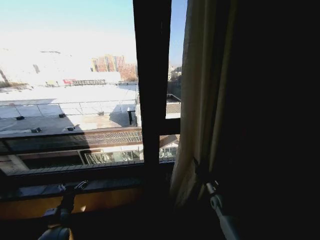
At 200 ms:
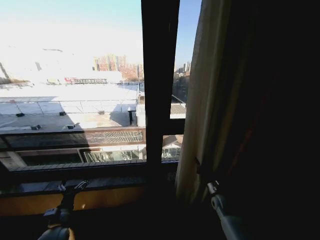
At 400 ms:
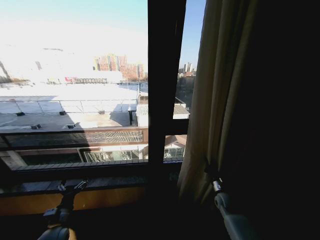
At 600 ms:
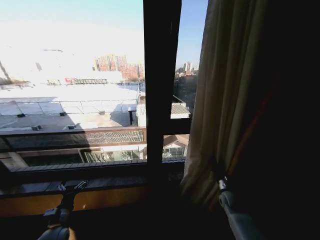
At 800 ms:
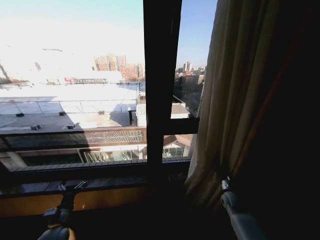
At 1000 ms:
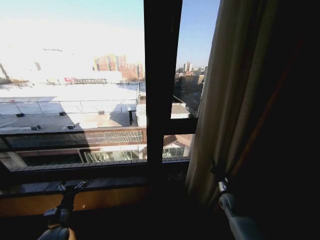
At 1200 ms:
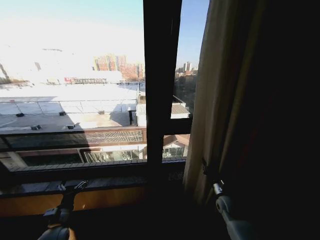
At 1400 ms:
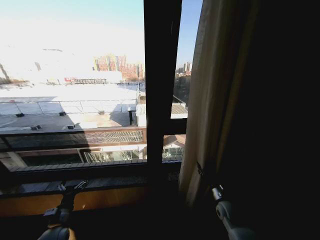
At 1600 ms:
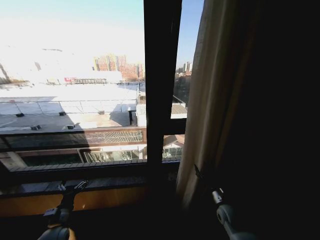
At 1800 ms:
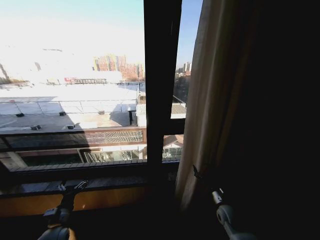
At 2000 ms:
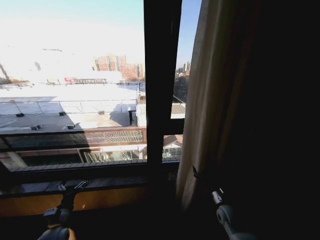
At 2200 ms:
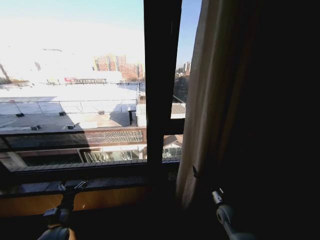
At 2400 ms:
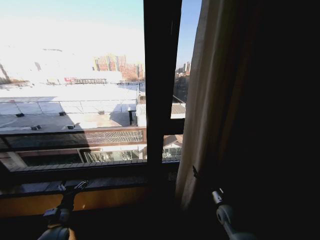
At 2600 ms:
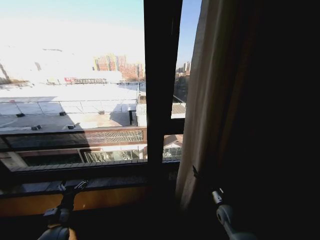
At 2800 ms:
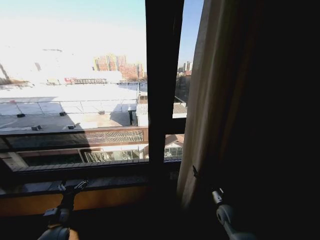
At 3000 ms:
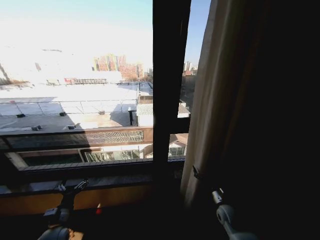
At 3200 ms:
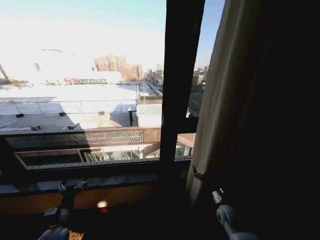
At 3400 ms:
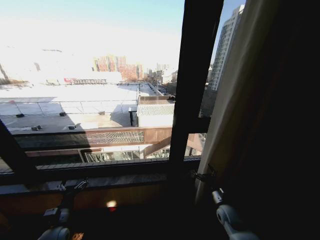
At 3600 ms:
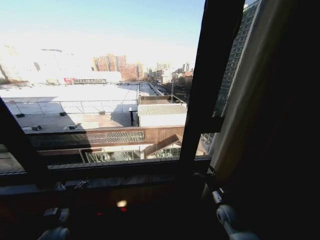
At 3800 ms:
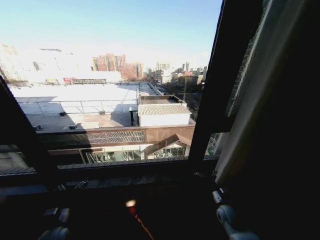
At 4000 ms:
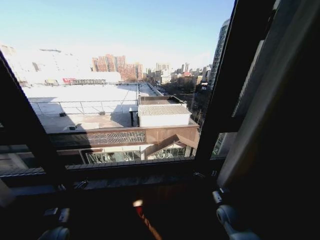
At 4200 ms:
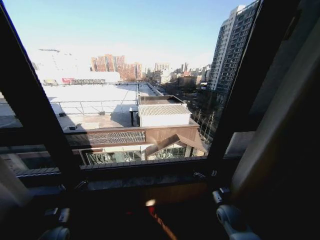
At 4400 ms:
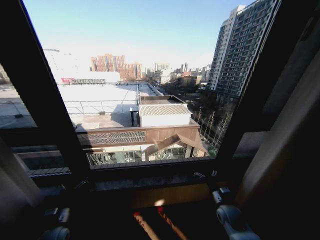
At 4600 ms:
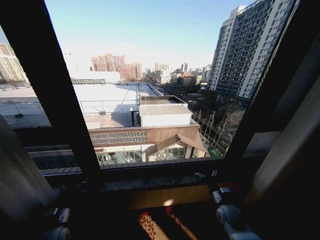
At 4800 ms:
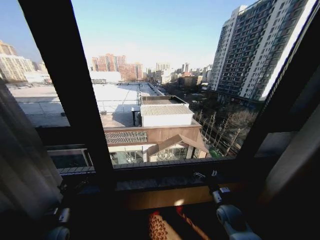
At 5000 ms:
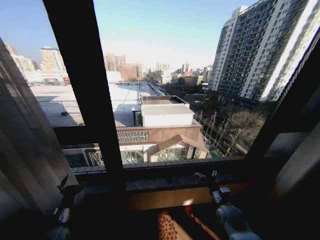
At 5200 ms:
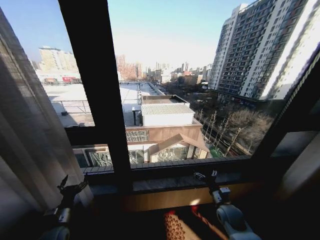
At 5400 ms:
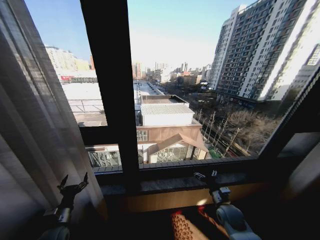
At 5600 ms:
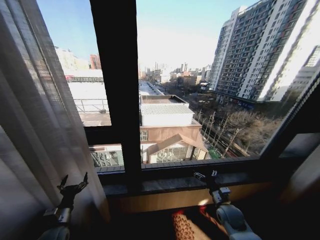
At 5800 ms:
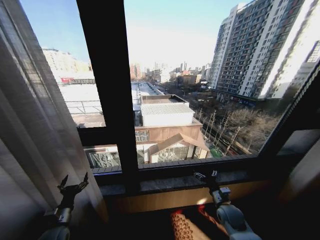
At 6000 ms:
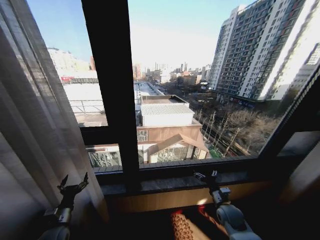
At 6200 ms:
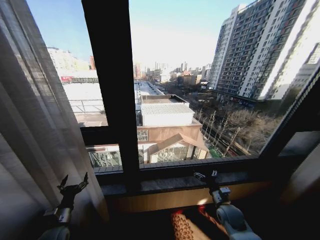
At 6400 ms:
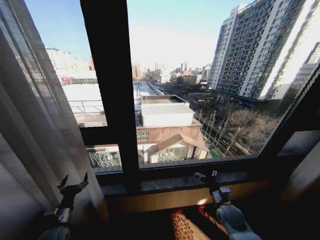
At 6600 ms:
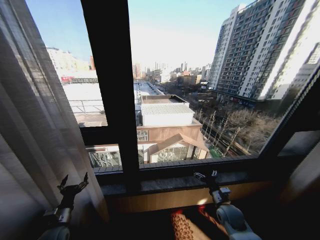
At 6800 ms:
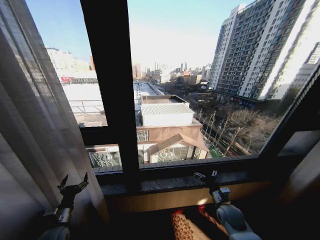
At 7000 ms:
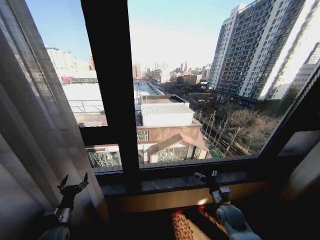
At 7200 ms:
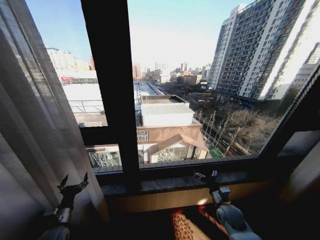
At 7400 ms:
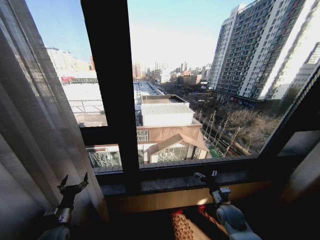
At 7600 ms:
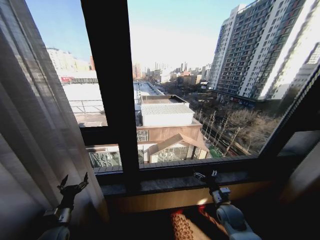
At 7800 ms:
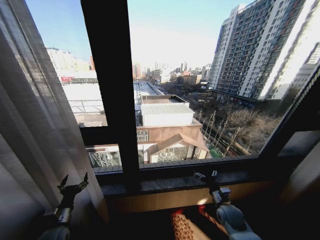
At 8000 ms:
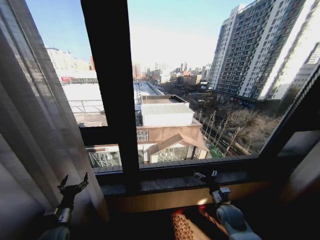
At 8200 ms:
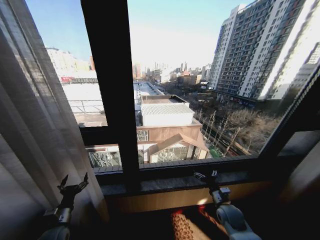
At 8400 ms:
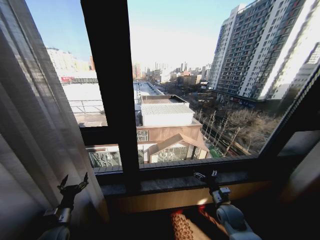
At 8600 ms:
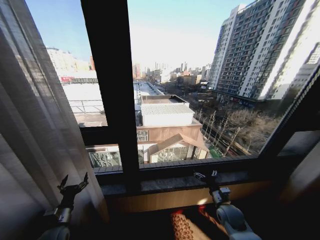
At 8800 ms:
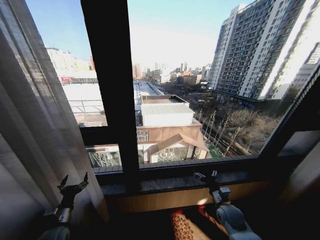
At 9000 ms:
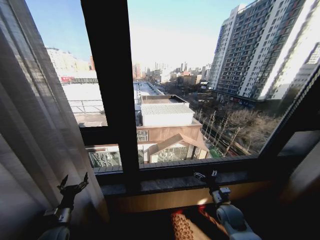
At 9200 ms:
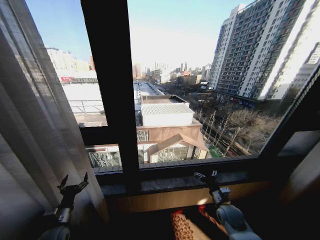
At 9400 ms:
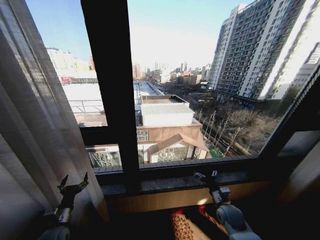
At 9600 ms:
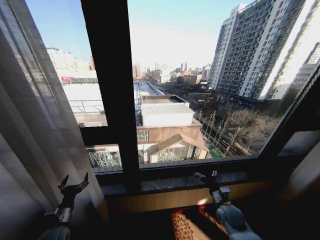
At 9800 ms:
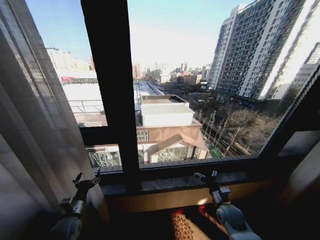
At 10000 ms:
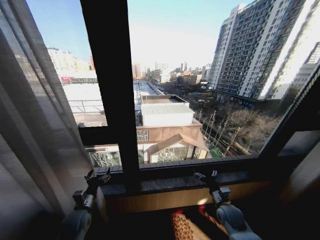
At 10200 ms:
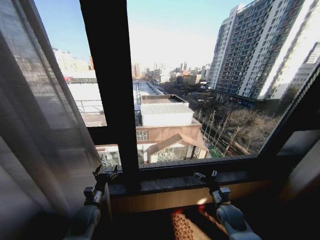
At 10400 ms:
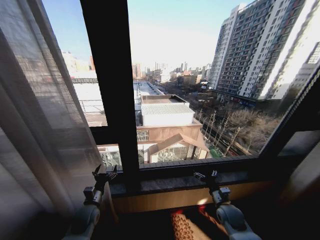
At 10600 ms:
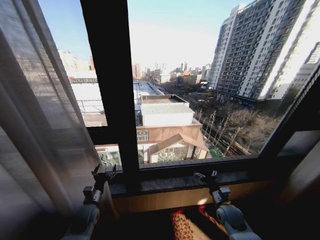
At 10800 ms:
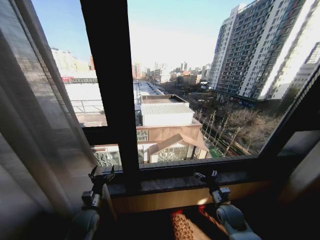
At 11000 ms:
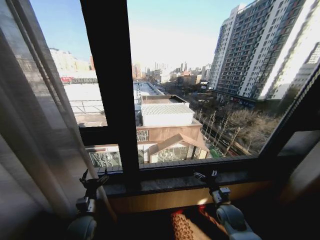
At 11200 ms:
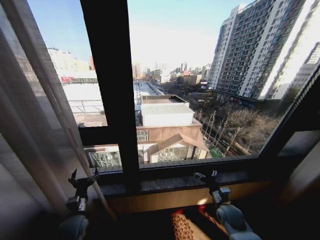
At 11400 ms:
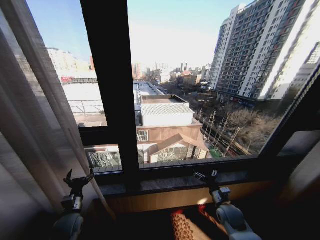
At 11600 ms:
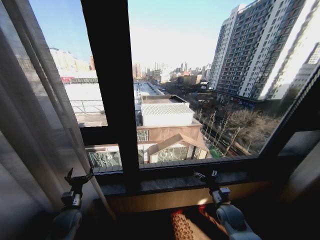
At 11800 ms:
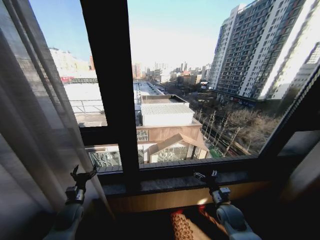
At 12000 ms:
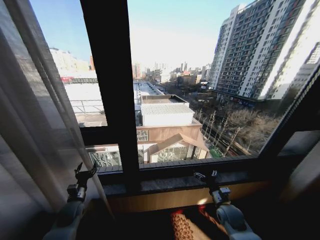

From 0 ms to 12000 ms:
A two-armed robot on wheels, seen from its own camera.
Task of the whole recording: Open the curtains by pulling them apart, changing their state from closed to fully open.
From 0 ms to 1600 ms: The right gripper goes roughly 5 cm backward, and opens its fingers.
From 1600 ms to 3000 ms: The right gripper opens.
From 6000 ms to 9000 ms: Both grippers stay about where they are.
From 9000 ms to 10400 ms: The left gripper travels to the right and forward by roughly 10 cm.
From 10400 ms to 12000 ms: The left gripper is displaced to the left by roughly 10 cm.

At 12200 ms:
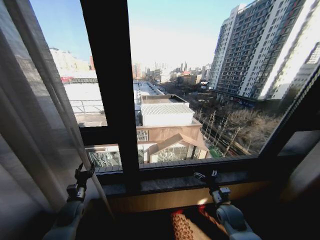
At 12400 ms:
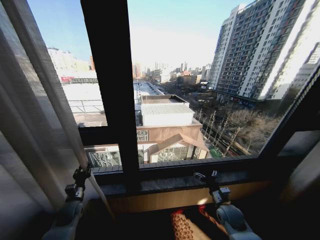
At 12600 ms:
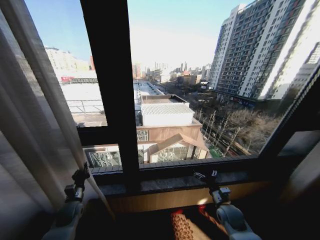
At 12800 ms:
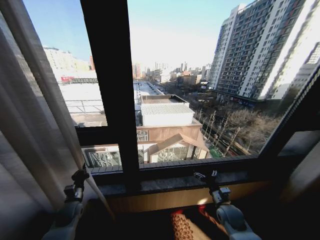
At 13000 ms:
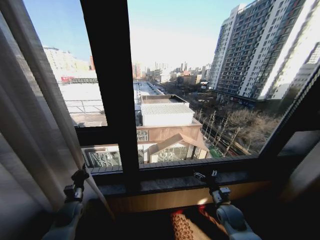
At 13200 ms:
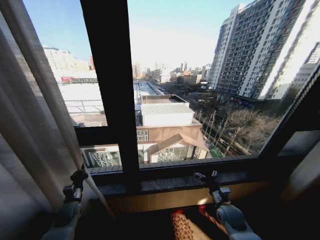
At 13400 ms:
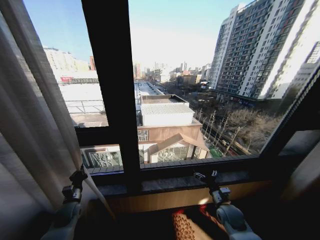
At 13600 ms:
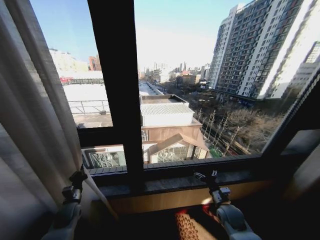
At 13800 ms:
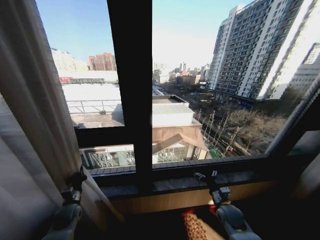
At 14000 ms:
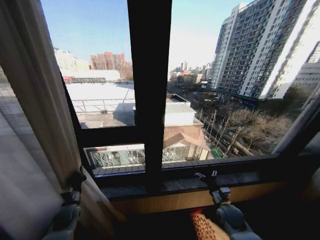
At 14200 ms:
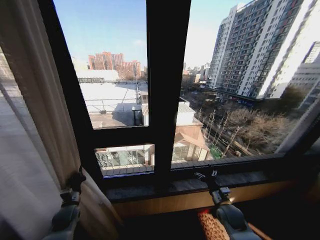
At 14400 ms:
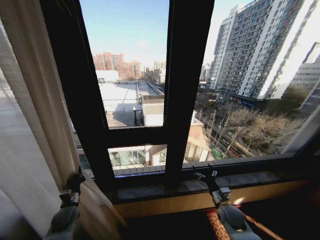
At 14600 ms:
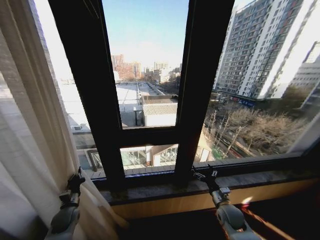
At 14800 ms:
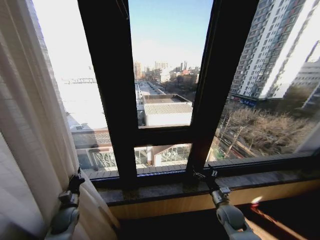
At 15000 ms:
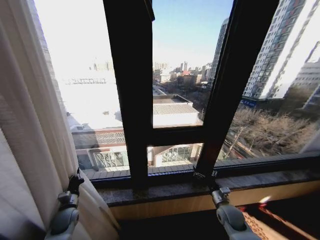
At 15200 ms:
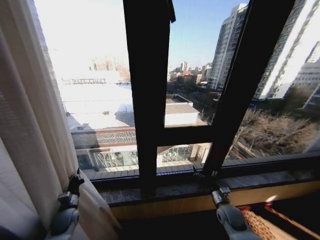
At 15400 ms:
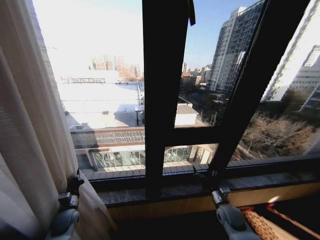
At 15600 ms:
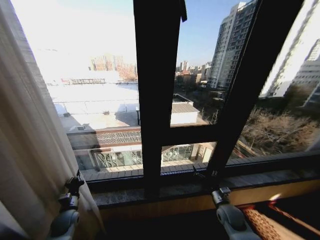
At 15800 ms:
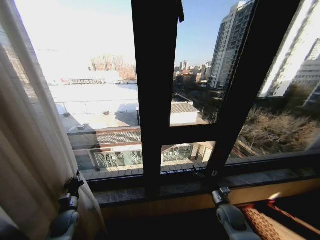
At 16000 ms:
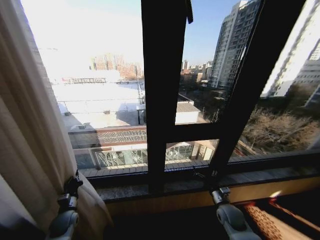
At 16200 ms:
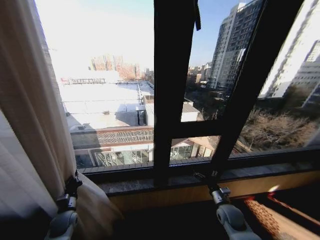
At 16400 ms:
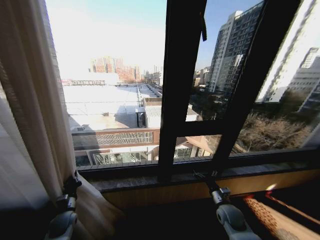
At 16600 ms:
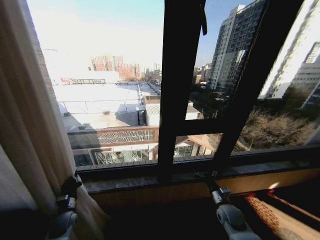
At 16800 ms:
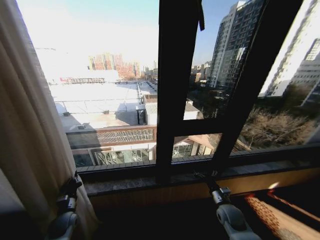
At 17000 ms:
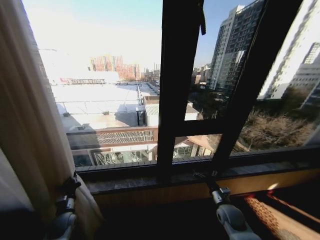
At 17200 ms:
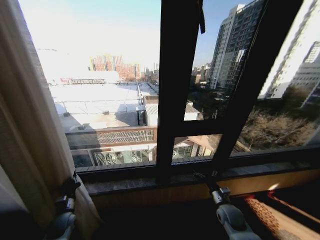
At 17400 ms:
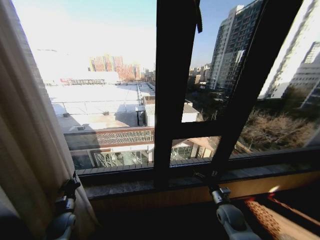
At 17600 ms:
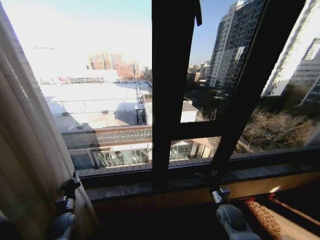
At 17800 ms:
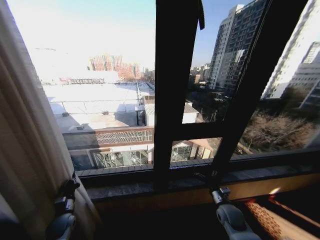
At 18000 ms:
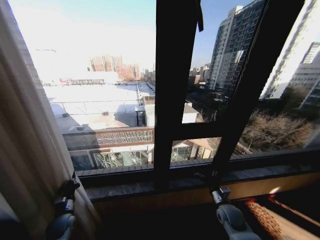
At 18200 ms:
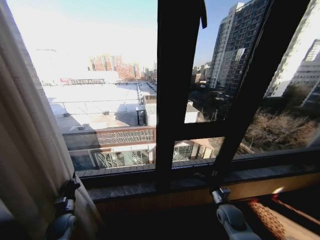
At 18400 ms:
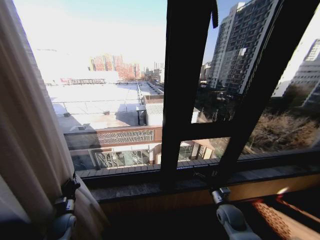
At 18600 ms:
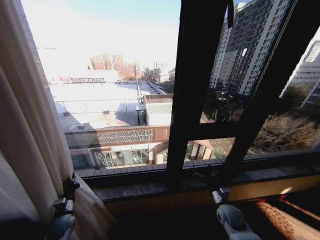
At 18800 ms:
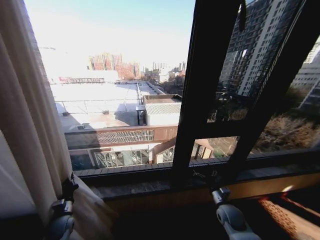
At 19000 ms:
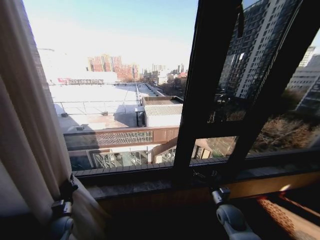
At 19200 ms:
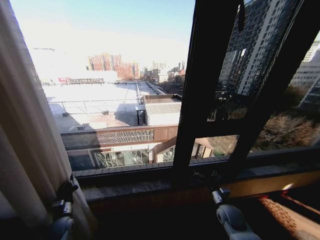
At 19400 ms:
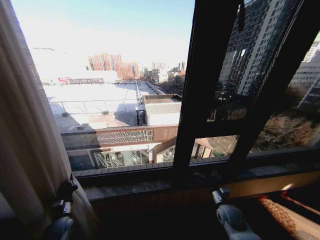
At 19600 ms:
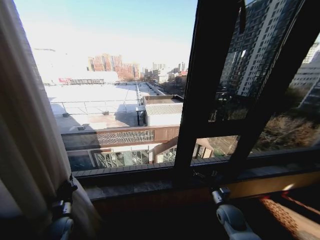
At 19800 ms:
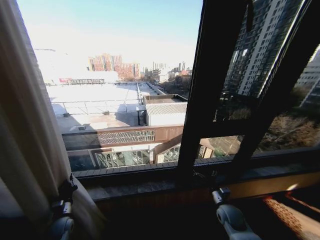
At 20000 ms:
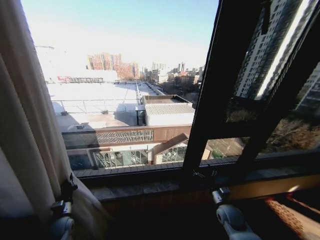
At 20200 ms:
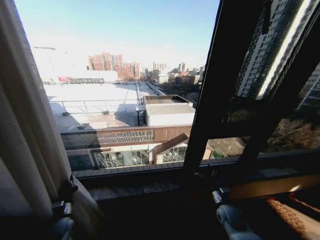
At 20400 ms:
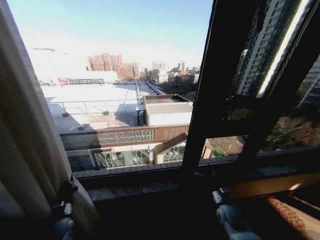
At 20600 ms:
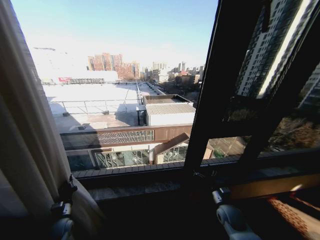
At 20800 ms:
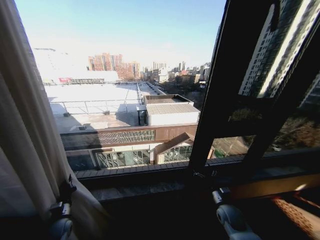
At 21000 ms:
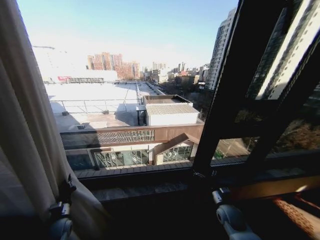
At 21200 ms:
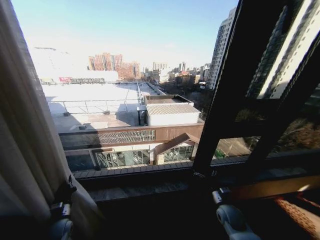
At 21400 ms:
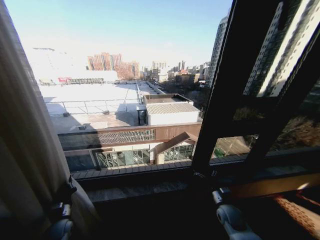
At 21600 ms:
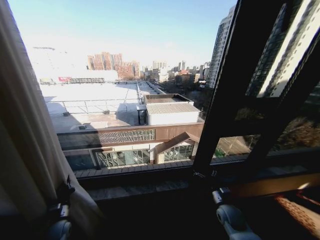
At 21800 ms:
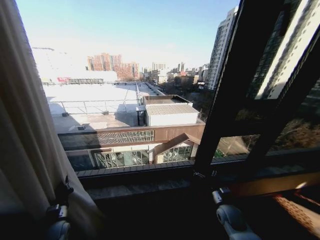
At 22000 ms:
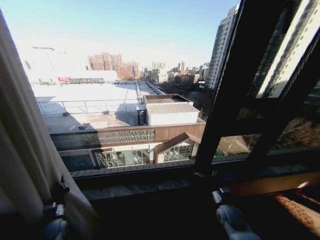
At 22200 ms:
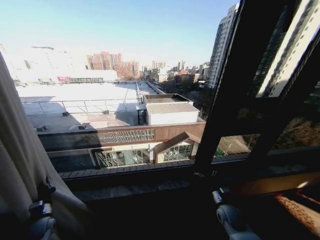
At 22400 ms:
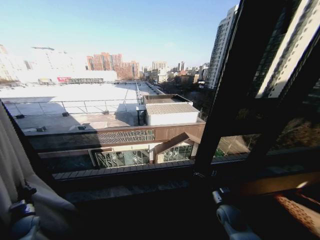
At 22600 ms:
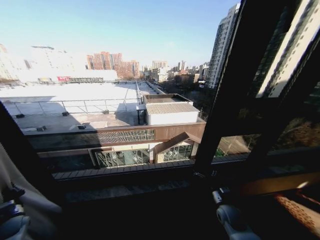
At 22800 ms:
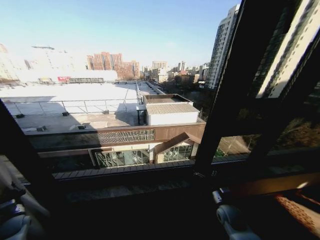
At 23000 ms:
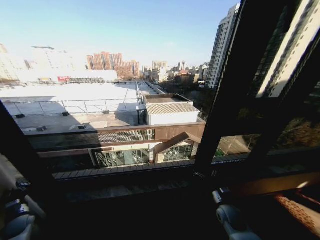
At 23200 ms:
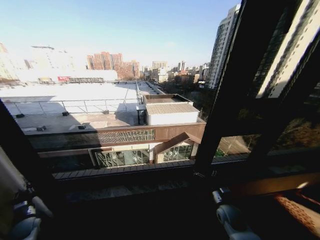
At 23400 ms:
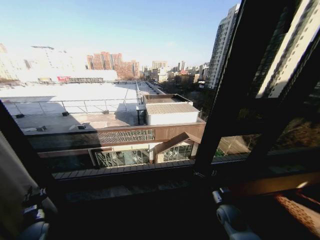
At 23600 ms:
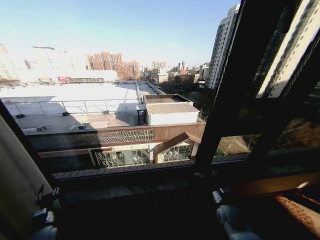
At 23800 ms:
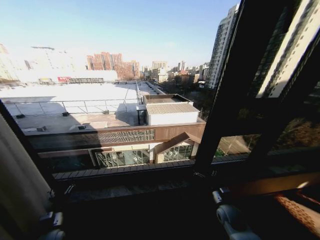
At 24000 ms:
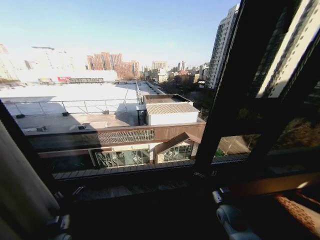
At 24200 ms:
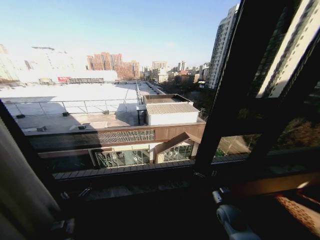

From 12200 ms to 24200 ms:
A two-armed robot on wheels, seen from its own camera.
Task of the whole recording: Open the curtains by pulling them apart, changing their state from closed to fully open.
From 12200 ms to 13800 ms: The left gripper closes its fingers.
From 21200 ms to 22600 ms: The left gripper is displaced to the left by approximately 20 cm.
From 22600 ms to 24200 ms: The left gripper shifts approximately 25 cm to the right, and opens its fingers.
